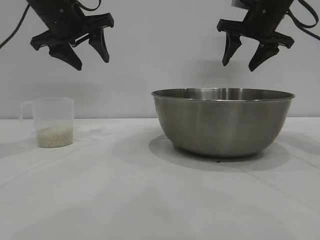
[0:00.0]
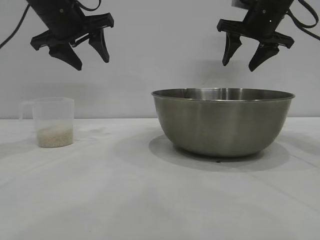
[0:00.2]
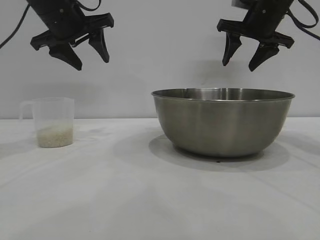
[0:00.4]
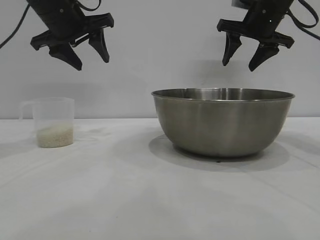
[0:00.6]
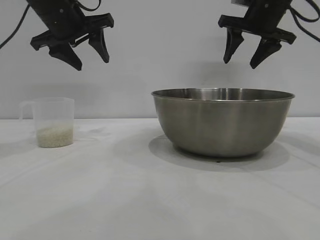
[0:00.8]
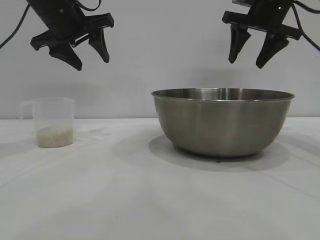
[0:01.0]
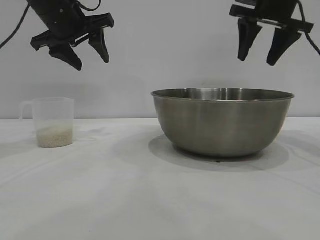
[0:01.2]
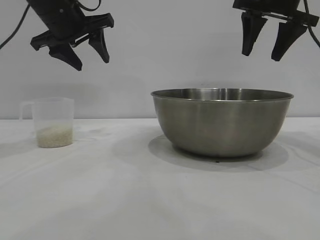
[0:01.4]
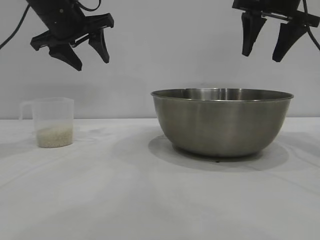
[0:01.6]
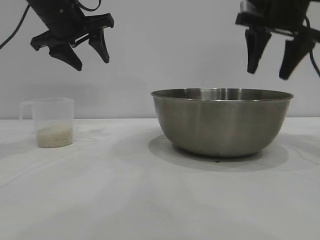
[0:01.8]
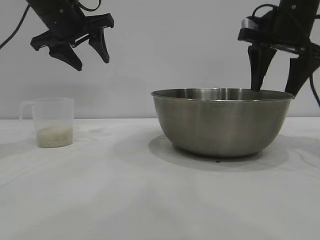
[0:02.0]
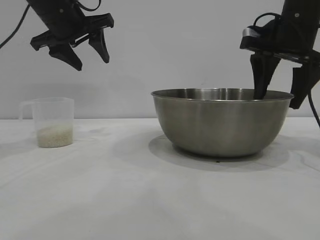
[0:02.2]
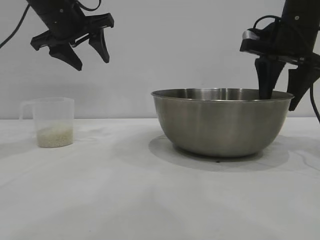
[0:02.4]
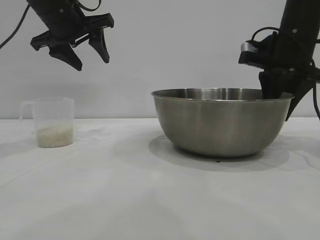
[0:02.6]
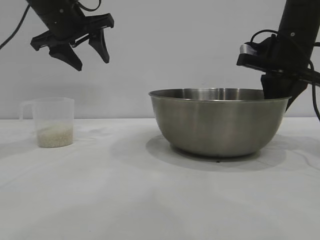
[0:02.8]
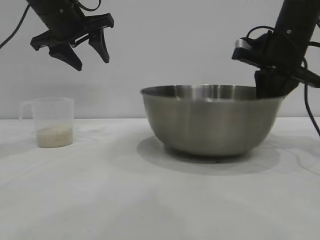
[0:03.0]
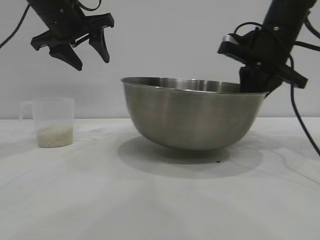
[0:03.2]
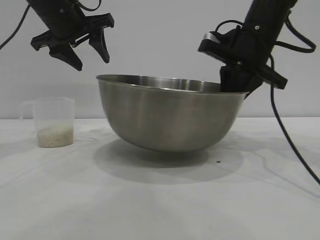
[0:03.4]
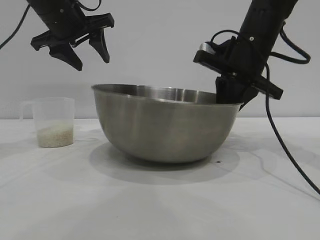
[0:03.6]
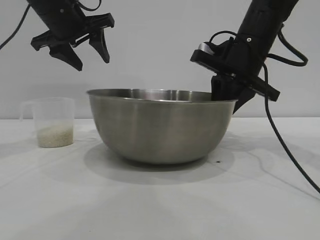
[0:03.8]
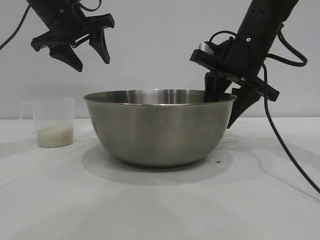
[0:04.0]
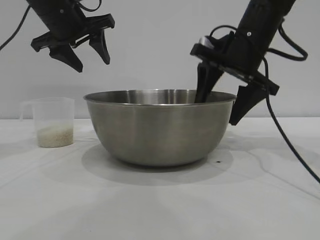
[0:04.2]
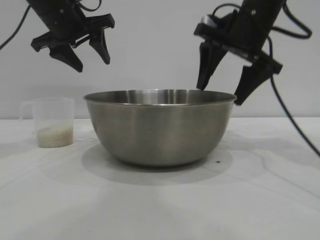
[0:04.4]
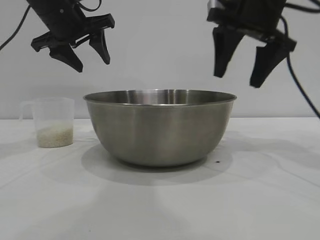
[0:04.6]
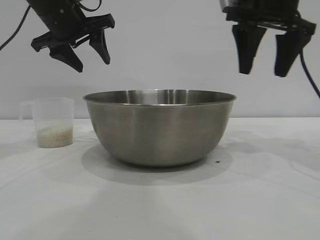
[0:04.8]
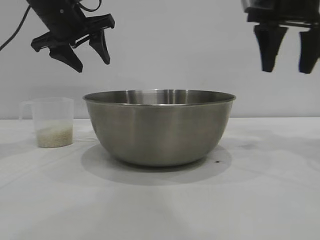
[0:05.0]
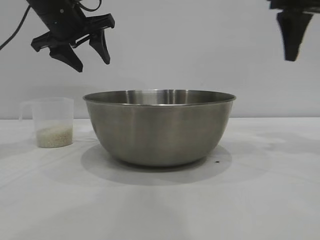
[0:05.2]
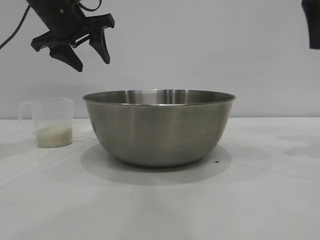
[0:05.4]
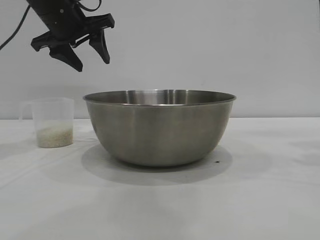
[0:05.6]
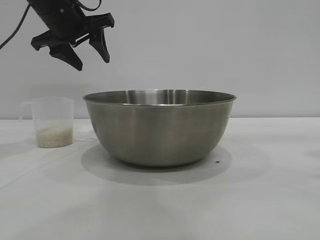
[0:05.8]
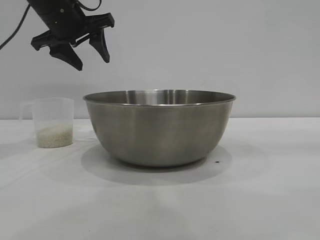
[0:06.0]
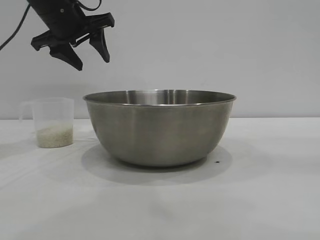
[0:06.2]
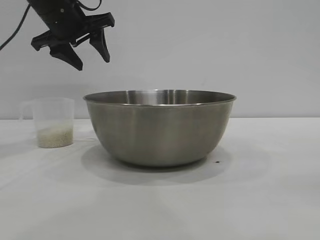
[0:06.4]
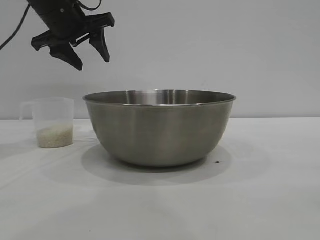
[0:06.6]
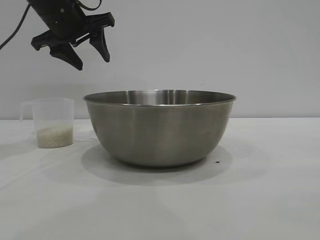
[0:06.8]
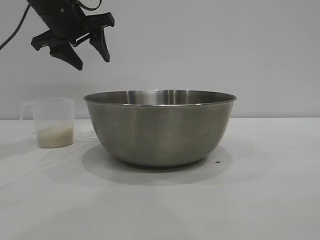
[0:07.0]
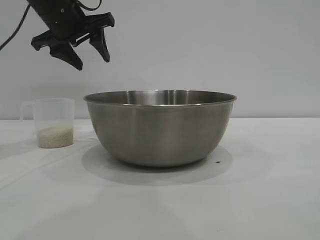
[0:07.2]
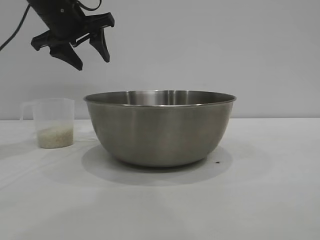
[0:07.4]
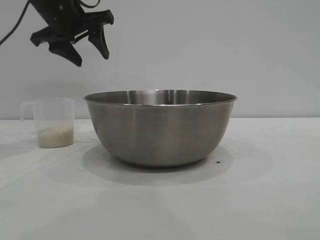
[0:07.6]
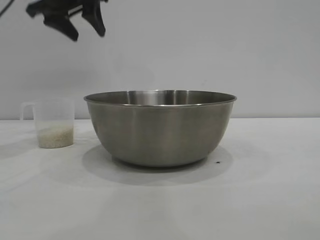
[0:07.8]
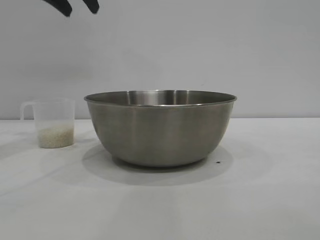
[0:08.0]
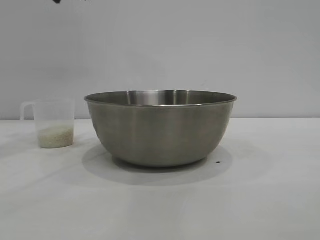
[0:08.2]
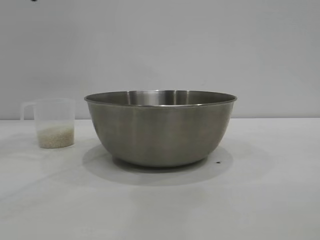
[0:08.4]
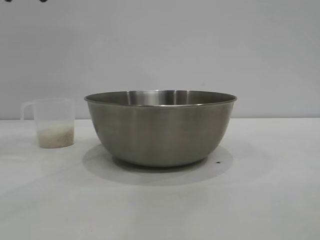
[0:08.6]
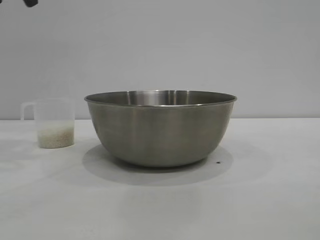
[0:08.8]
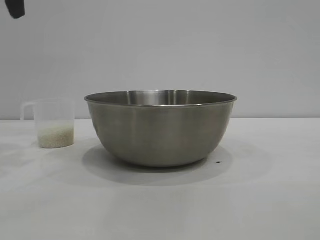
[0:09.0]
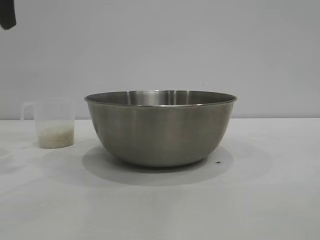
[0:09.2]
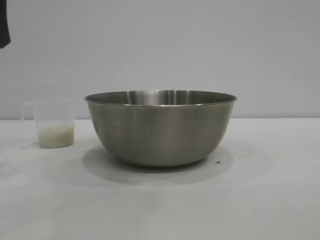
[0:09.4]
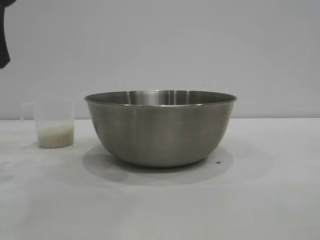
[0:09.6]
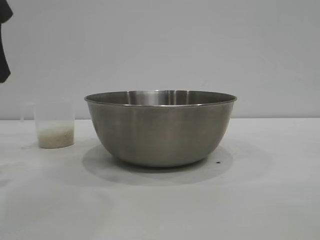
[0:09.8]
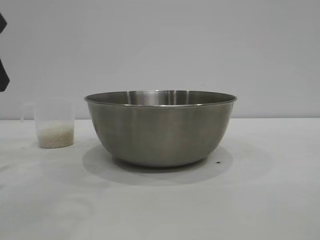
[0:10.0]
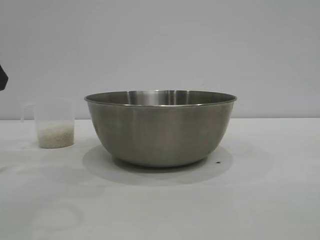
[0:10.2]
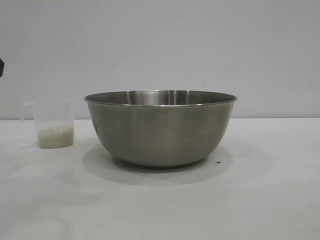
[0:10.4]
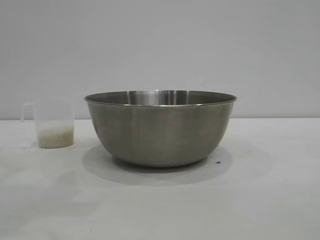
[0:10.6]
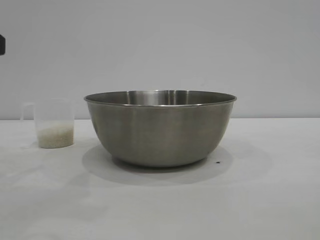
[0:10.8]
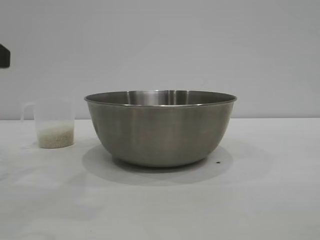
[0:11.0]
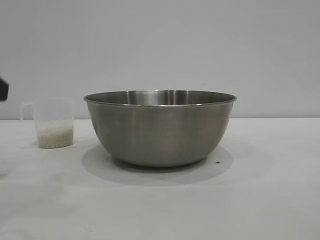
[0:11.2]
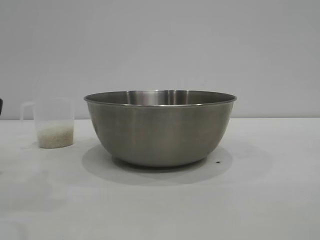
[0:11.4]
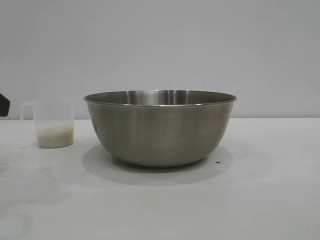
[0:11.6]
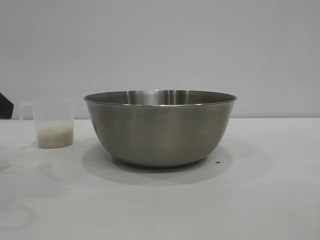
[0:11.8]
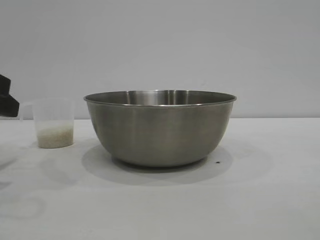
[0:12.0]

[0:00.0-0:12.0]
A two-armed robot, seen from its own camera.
Task of the whole recording: the right gripper grasp the rice container and place it in the center of the table, the left gripper grasp the rice scoop and pour the rice into the rice container.
Step, 0:00.0 to 0:03.0: Pick up the bowl with the right gripper.
Step, 0:03.2 to 0:04.4: Place the bowl in the center of view with the right gripper.

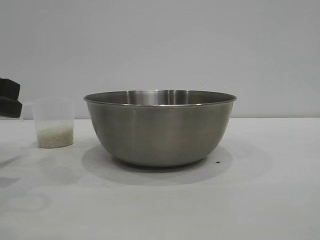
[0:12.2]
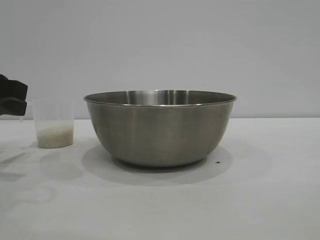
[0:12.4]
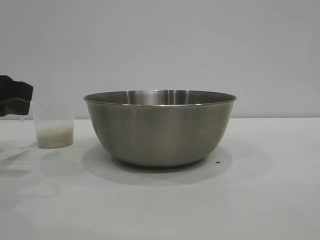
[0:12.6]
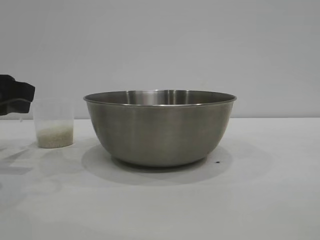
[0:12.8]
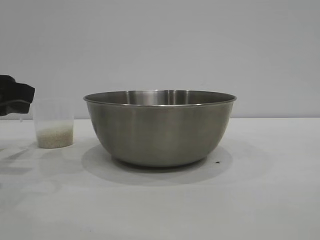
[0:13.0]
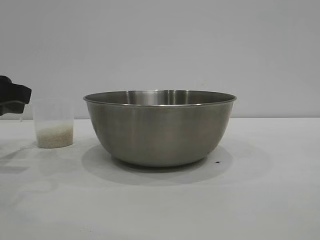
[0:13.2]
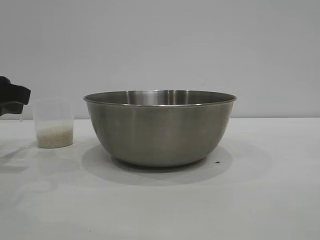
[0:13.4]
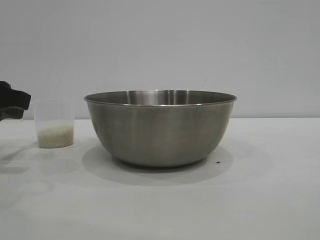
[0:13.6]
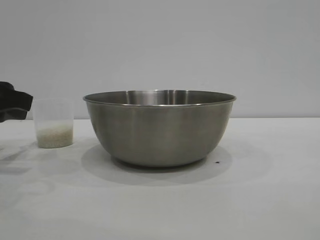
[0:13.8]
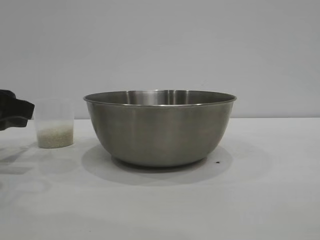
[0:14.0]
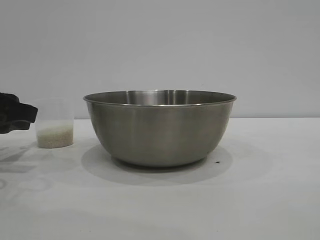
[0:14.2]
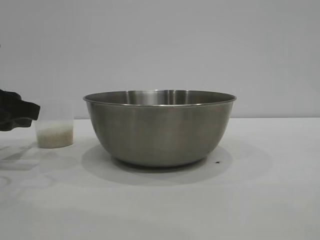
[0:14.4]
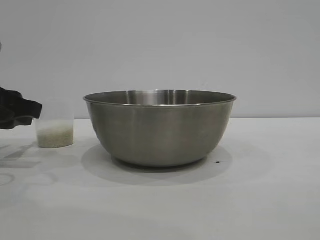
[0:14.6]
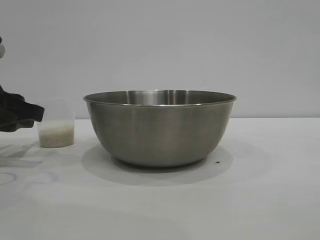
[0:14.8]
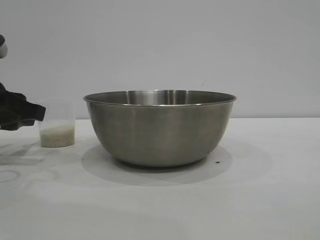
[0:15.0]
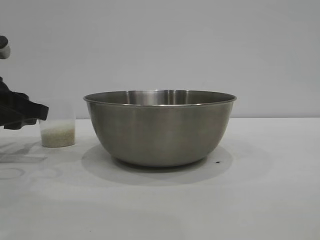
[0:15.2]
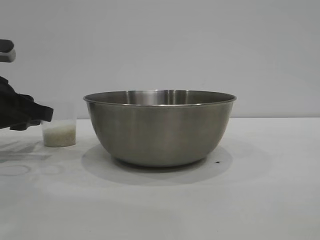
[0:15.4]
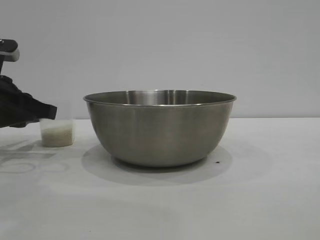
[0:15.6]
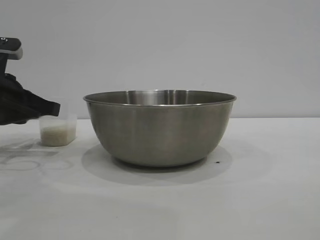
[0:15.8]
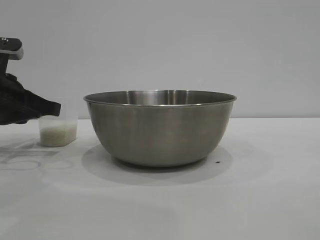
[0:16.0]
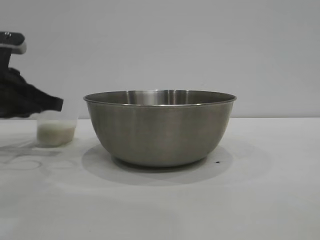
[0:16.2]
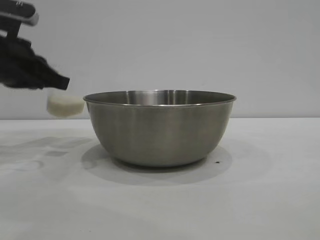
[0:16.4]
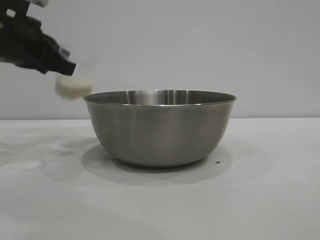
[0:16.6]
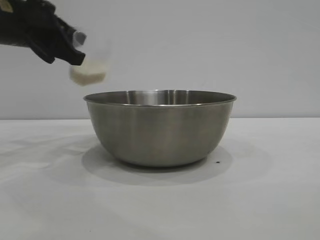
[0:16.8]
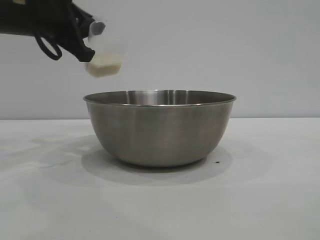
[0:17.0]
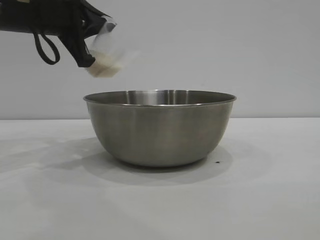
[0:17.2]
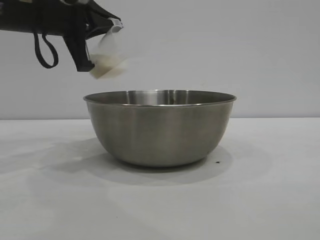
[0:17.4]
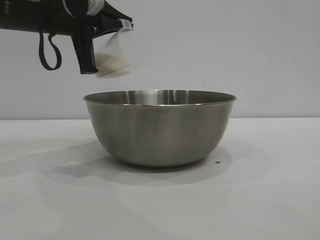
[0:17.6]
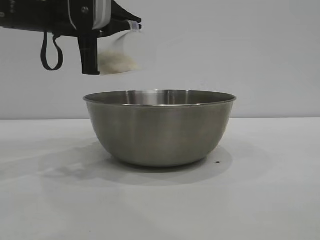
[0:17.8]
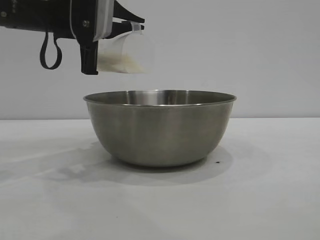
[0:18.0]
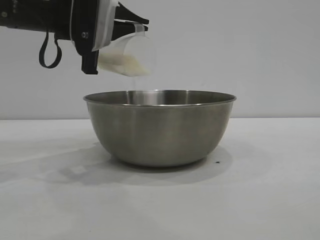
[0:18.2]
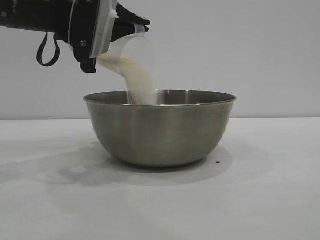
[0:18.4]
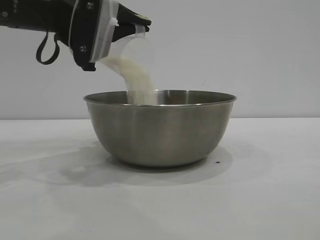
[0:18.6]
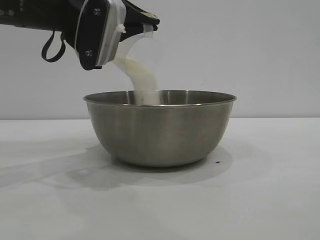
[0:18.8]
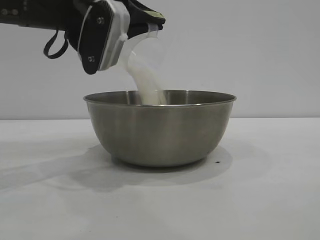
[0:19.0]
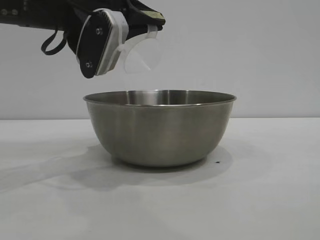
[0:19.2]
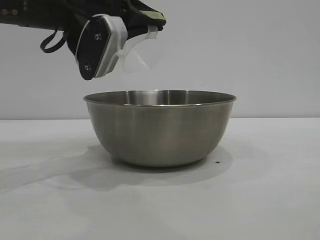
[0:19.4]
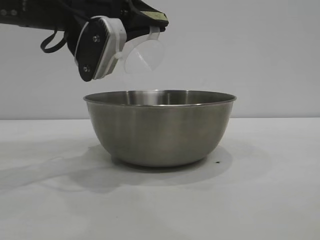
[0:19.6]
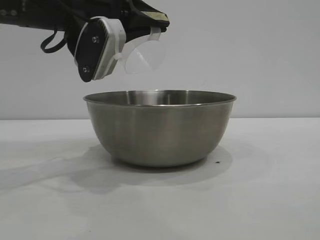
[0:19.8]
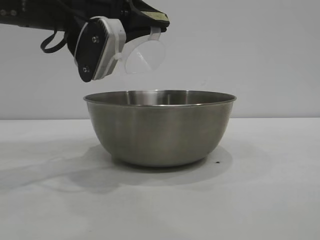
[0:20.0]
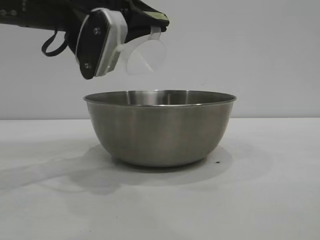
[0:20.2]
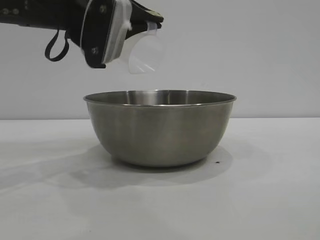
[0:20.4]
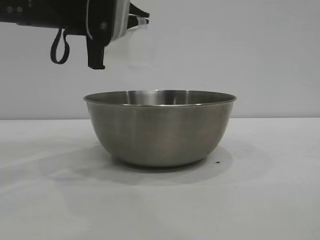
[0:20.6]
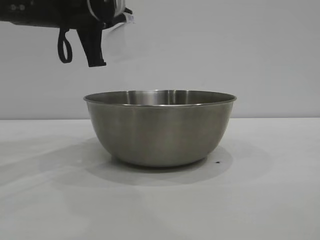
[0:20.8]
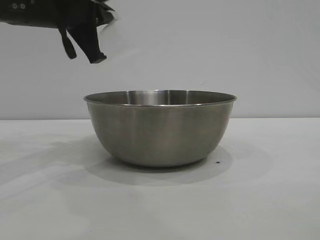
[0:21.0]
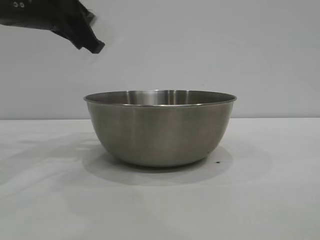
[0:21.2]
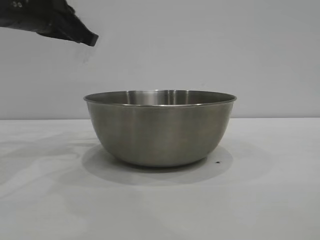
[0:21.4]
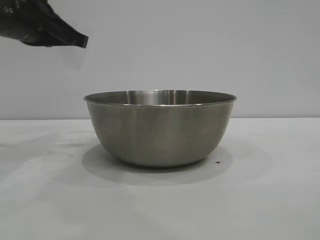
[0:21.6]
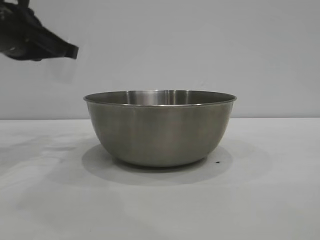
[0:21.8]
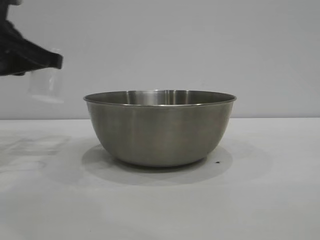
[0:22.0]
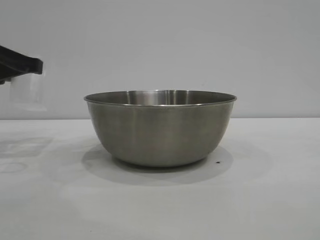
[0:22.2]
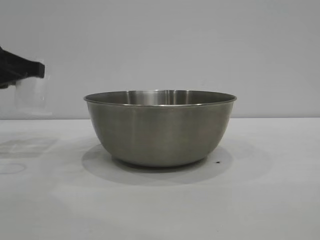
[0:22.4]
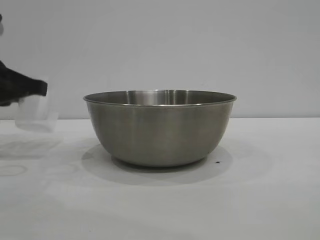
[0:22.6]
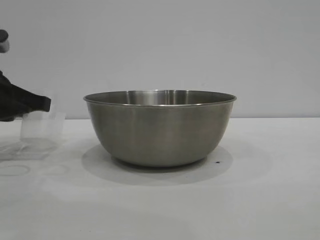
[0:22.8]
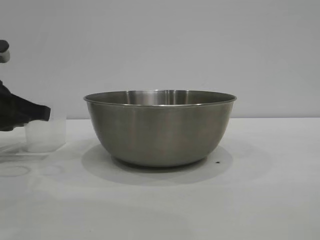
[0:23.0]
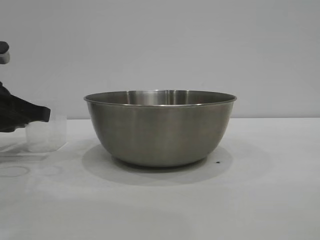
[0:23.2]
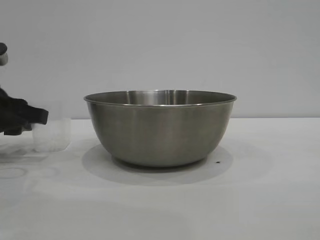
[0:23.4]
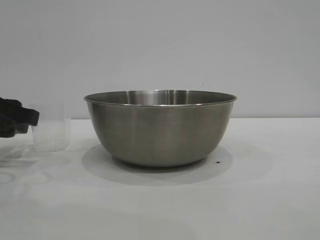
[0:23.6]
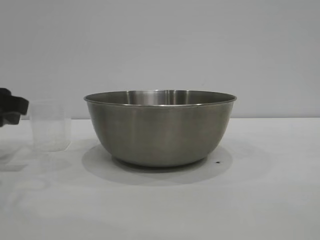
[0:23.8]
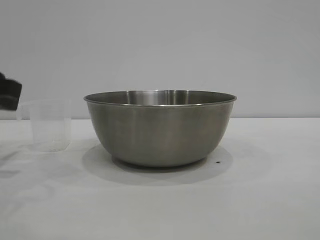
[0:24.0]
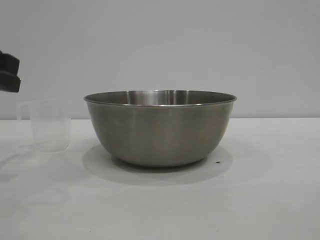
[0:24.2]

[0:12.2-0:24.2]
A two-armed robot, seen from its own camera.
Task of the whole recording: the right gripper grasp the rice container and place it in the center of the table, the left gripper grasp the rice scoop and pour the rice into the rice container.
Step, 0:12.2 to 0:16.4: Pick up the cup with rice in it with the left gripper.
Step, 0:16.6 to 0:19.6: Pour the rice from the cup into the bowl with the left gripper.
Step, 0:19.8 to 0:24.0: Place the cup on the table with the left gripper.
